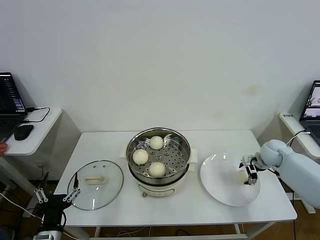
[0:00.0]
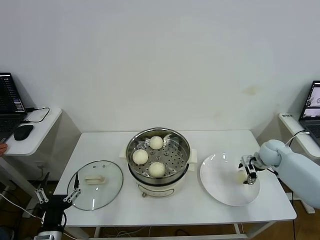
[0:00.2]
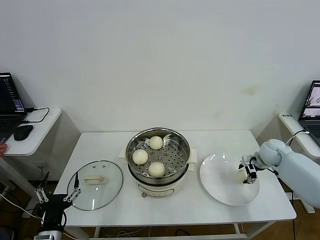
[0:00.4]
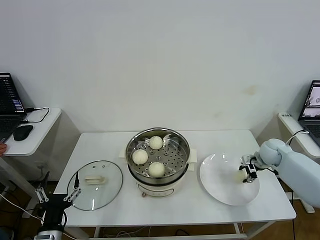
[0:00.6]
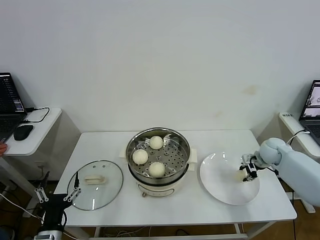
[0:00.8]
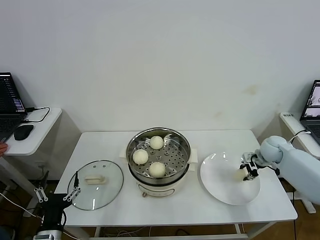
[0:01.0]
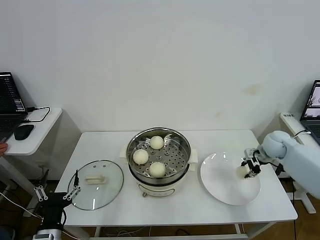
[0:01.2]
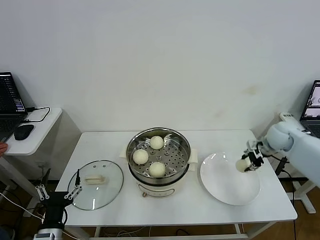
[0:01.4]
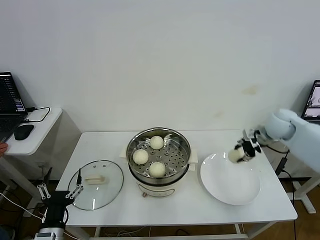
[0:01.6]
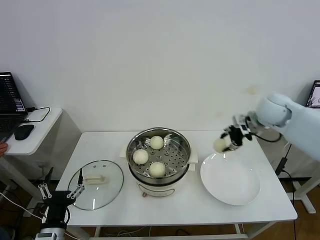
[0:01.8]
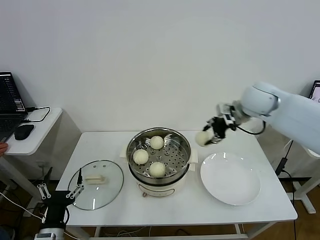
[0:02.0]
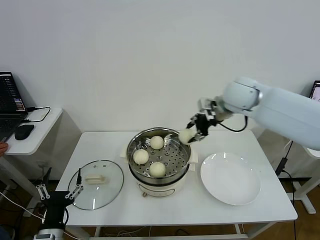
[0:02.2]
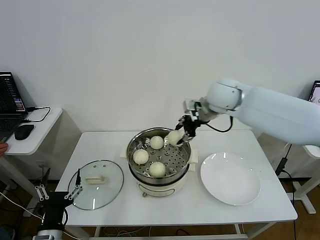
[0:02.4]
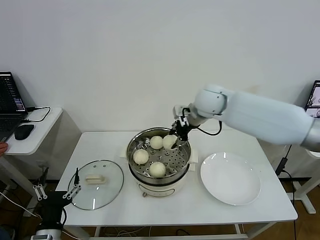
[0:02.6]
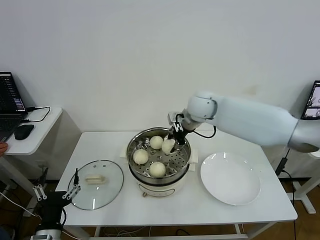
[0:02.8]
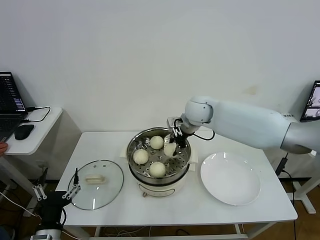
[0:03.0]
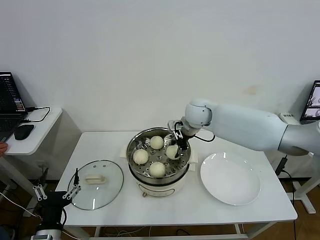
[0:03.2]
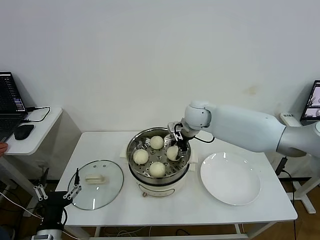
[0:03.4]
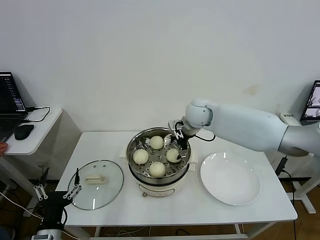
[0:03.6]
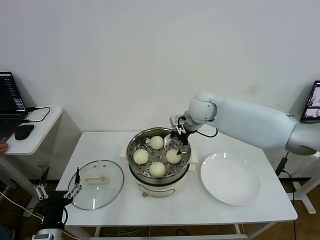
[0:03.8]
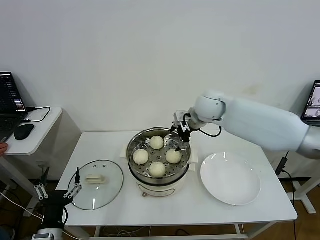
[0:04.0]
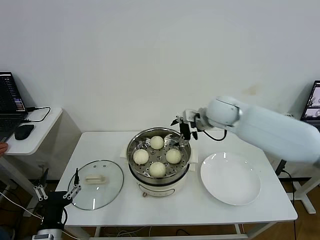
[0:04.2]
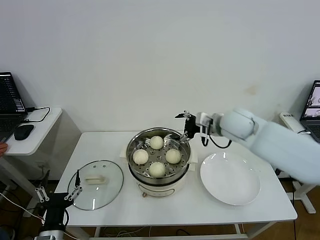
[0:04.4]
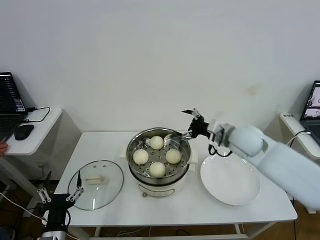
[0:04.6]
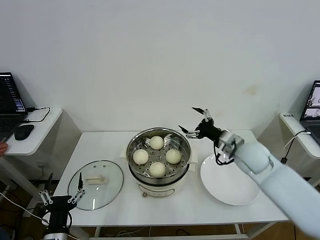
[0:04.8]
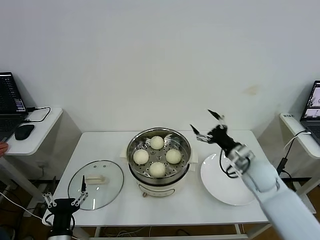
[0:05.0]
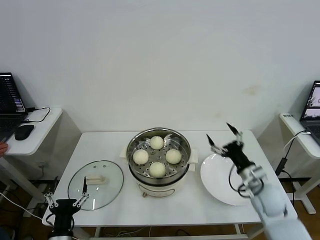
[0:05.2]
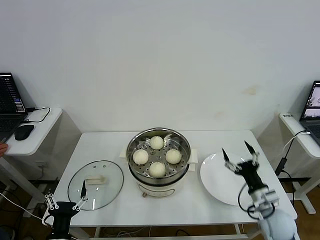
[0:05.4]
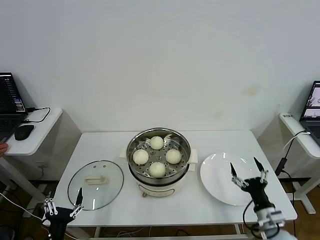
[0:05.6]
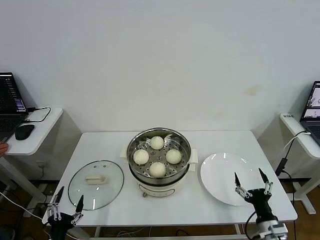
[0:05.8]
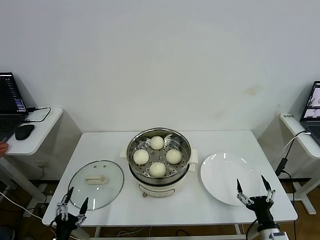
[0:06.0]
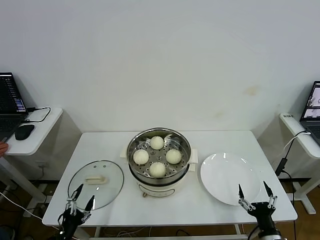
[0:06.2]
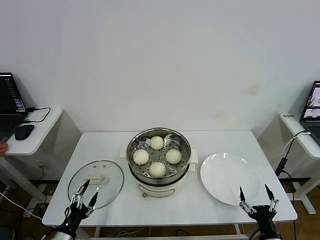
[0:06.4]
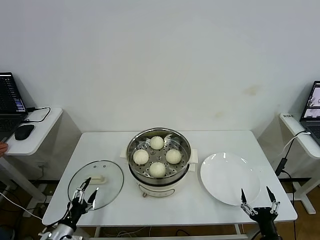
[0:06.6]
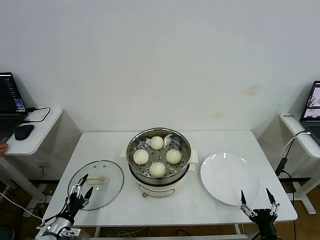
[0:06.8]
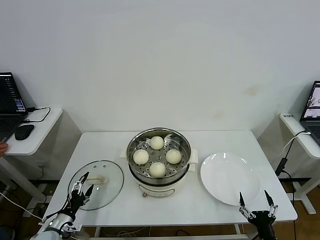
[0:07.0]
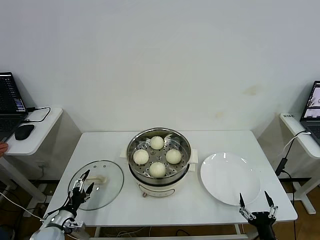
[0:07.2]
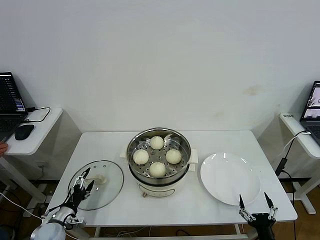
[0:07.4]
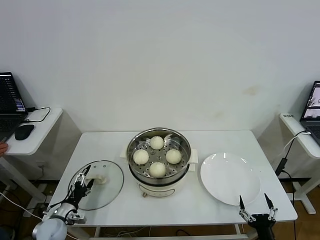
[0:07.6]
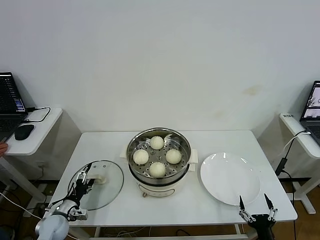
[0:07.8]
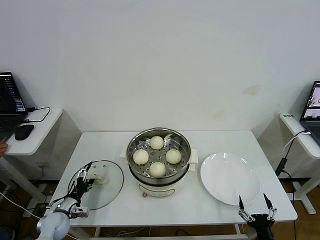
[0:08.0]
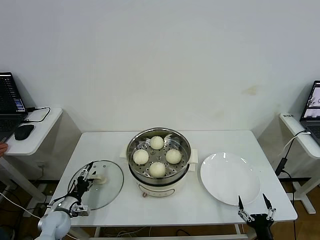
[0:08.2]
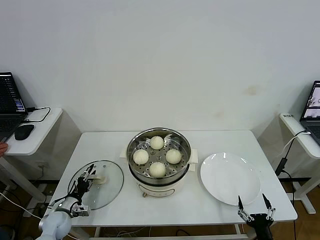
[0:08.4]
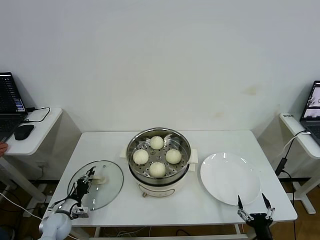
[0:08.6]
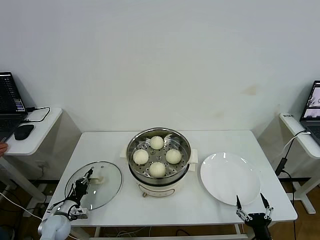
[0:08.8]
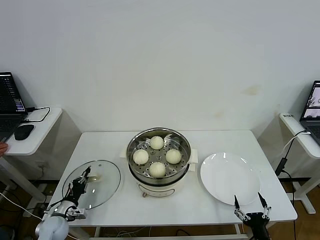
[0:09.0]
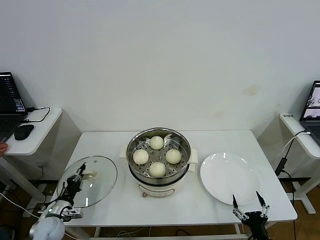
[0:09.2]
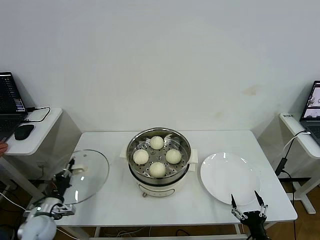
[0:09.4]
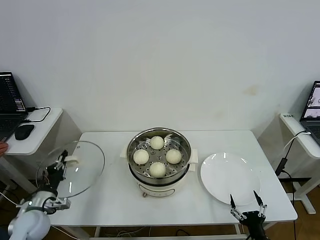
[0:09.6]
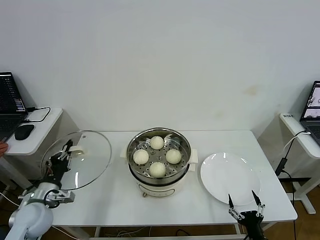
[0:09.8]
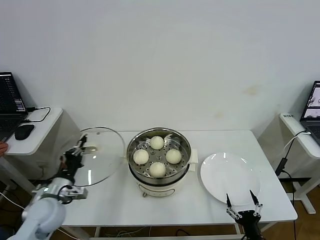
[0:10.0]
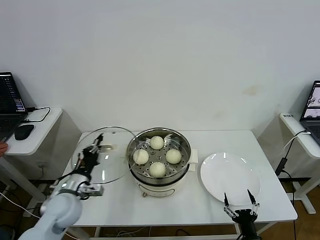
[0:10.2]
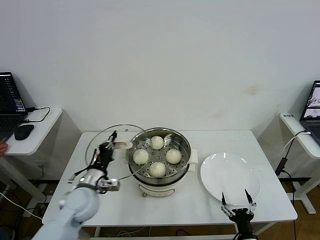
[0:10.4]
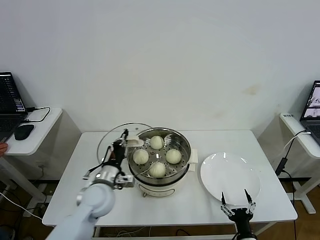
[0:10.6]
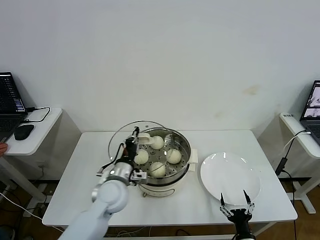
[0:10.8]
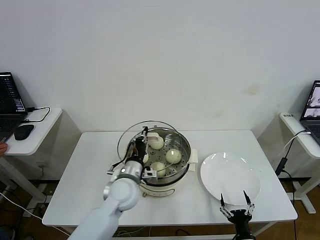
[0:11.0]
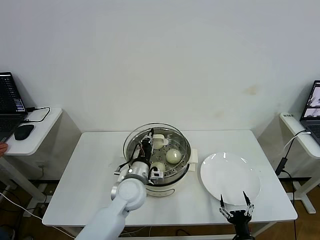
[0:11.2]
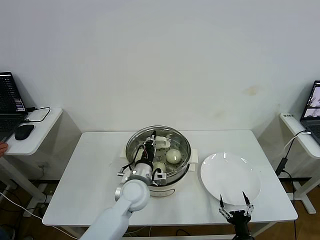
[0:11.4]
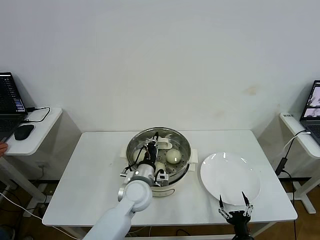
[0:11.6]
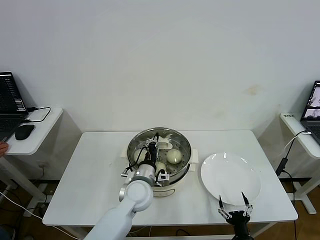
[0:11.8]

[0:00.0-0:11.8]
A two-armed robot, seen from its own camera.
Step, 0:01.0 to 0:04.2: Place the baozi on the steamer with right gripper.
Step, 0:04.6 to 0:09.0: Grasp the pot lid with left gripper.
0:00.0 to 0:01.4: The right gripper is displaced upward by roughly 10 cm, and closes its fingers.
0:01.4 to 0:03.0: The right gripper heads to the left, covering approximately 30 cm.
0:03.0 to 0:04.4: The right gripper shifts roughly 10 cm to the right and backward, and opens up.
0:04.4 to 0:06.0: The right gripper travels backward and downward by roughly 40 cm. Meanwhile the left gripper shifts roughly 10 cm downward.
0:06.0 to 0:07.4: The left gripper heads forward, covering some 15 cm. Meanwhile the right gripper ends up roughly 5 cm from where it was.
0:07.4 to 0:08.8: The left gripper closes up.
0:08.8 to 0:10.4: The left gripper shifts roughly 25 cm upward and to the right. The right gripper shifts by some 5 cm.
0:10.4 to 0:11.8: The left gripper shifts approximately 15 cm to the right.

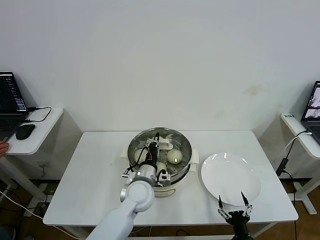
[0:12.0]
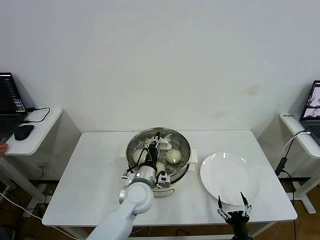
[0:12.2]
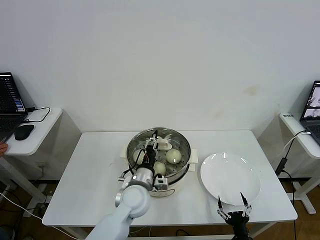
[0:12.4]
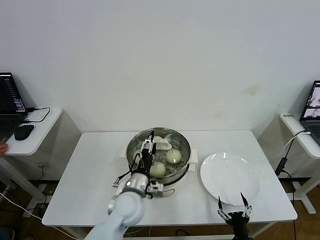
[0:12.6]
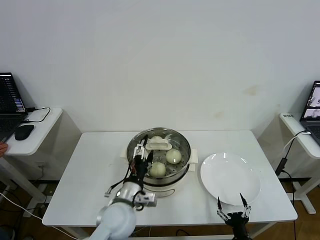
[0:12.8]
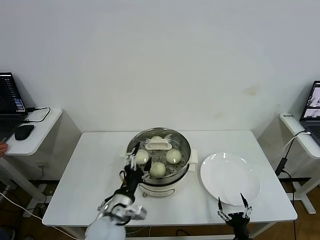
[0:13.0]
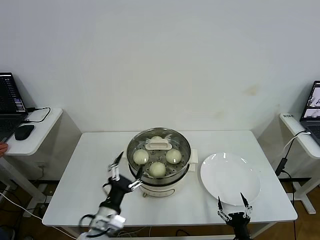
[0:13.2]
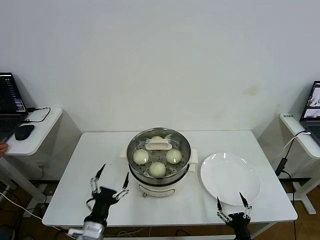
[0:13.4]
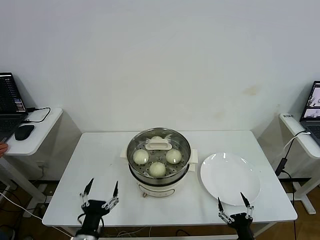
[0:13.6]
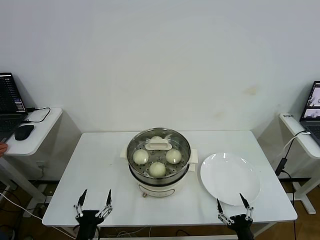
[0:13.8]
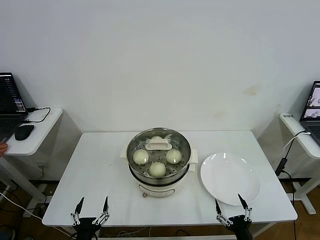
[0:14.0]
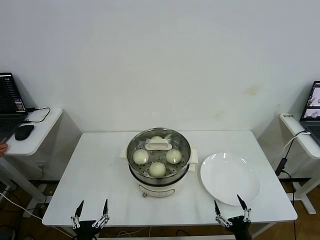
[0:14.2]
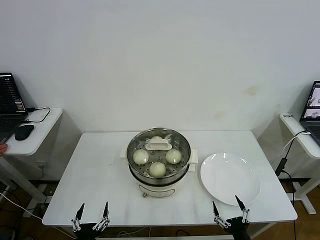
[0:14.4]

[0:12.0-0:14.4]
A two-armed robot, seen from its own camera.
0:12.0 to 0:13.2: The left gripper shifts about 15 cm backward and to the left, and opens.
0:13.2 to 0:14.4: The right gripper changes place by roughly 5 cm. Meanwhile the left gripper travels backward, downward and to the left by some 20 cm.

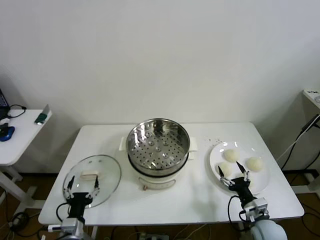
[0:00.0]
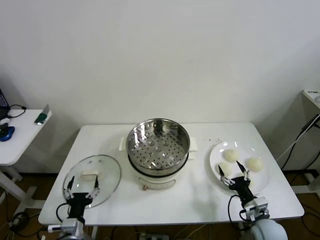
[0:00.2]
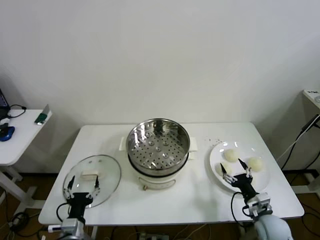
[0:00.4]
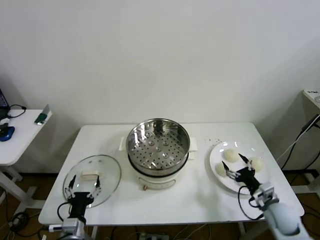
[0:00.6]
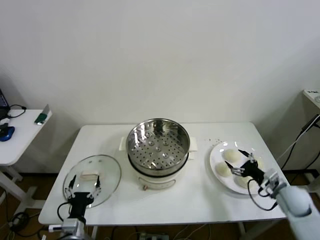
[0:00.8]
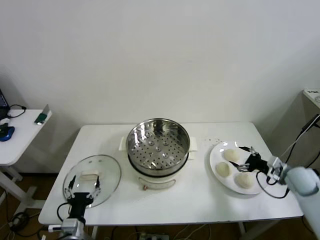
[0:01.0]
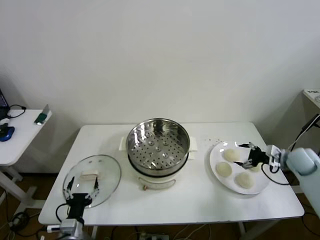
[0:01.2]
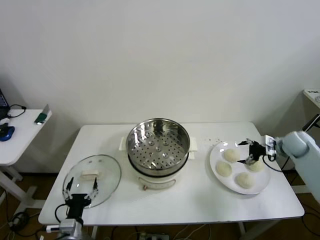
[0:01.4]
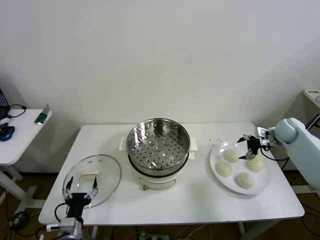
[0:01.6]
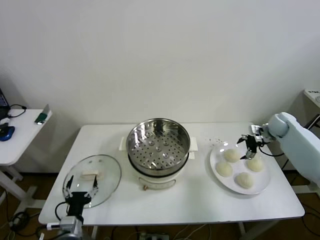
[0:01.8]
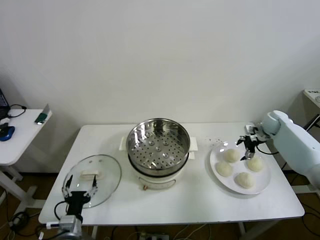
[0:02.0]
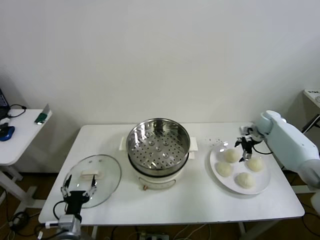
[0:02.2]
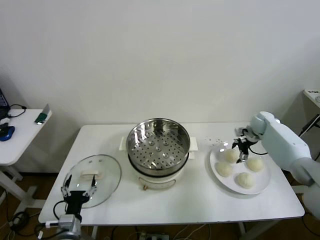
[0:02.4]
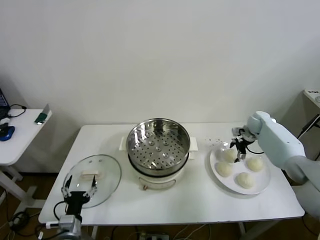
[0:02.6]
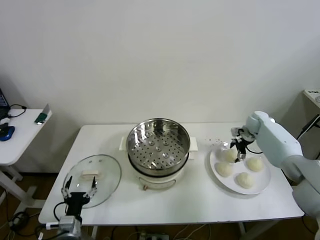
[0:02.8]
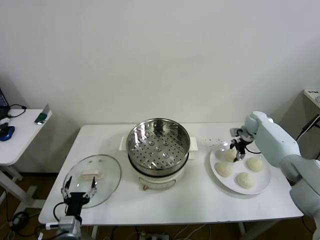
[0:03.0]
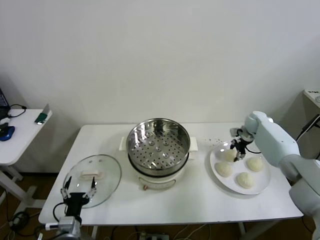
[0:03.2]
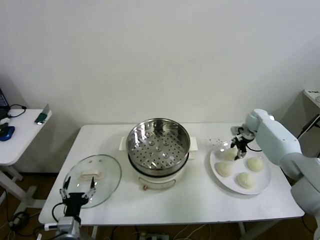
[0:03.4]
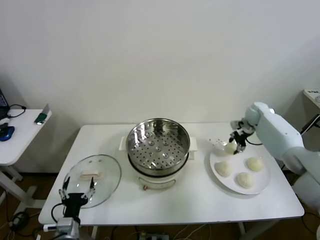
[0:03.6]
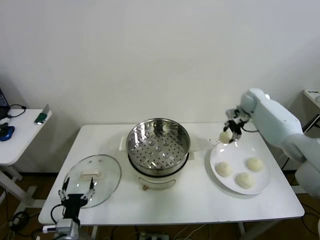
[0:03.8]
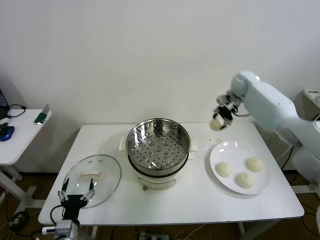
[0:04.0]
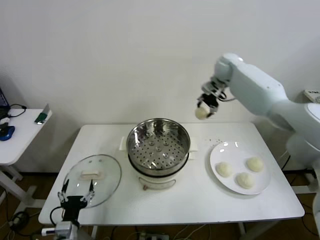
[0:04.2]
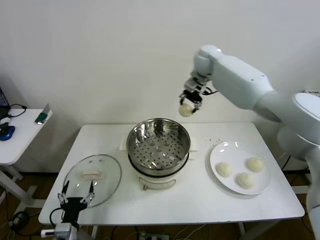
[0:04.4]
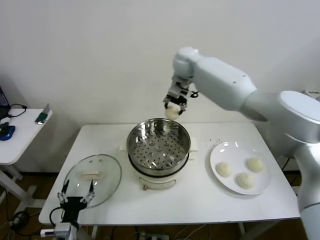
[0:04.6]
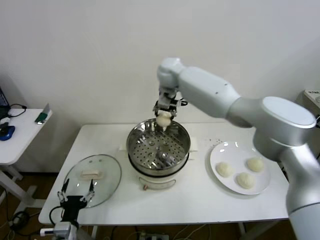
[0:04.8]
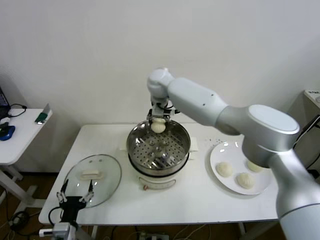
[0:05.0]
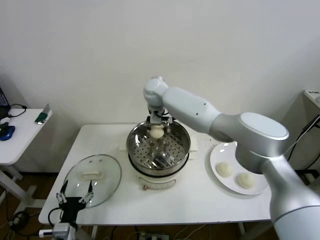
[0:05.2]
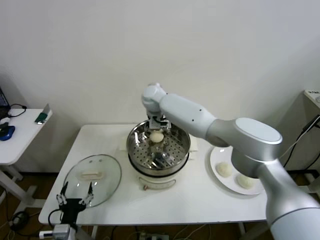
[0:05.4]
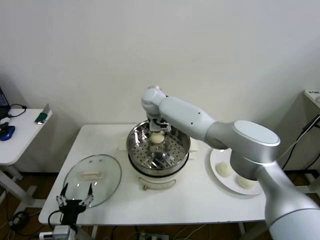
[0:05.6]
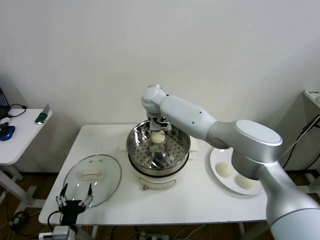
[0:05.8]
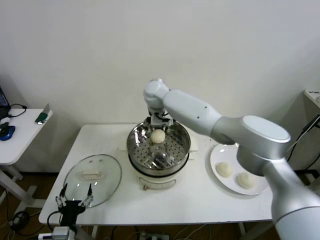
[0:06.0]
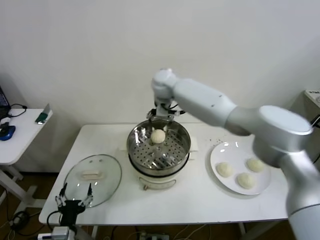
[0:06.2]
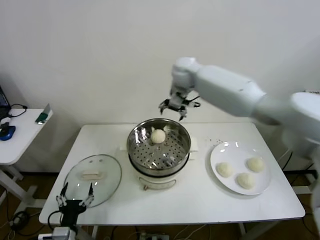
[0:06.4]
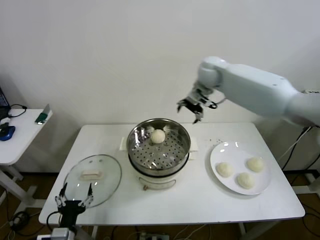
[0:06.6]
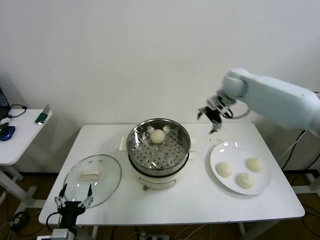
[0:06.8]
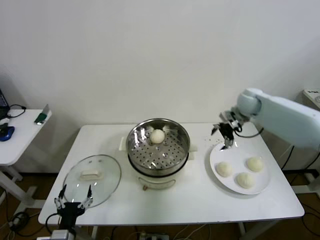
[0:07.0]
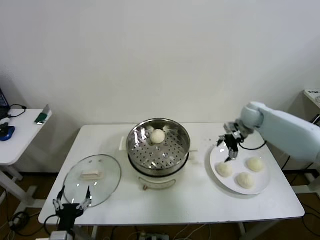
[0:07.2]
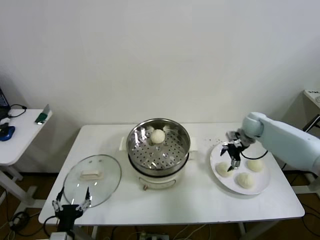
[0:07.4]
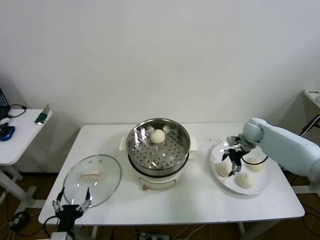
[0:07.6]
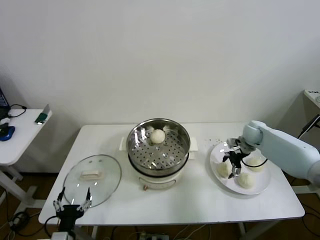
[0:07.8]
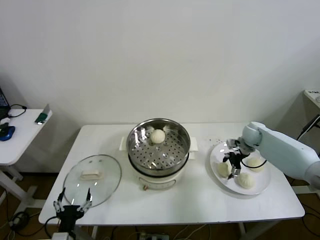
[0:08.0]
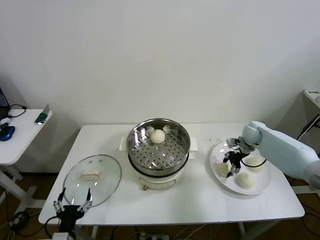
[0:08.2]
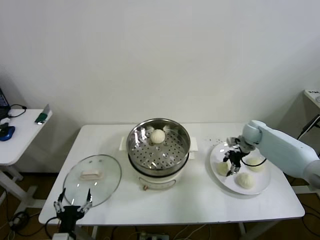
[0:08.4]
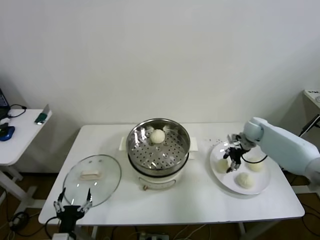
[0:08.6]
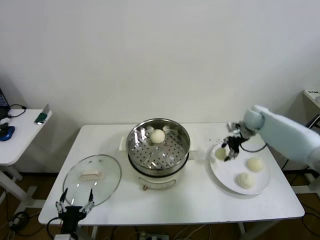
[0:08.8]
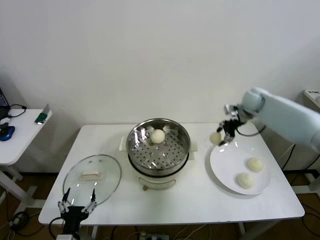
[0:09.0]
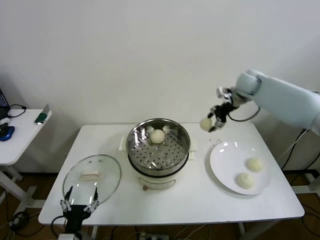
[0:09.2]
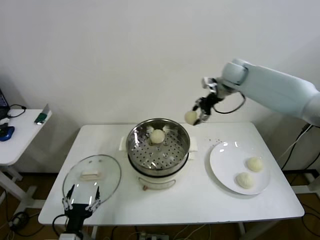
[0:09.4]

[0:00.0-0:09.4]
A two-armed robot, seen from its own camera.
Step, 0:00.0 to 0:03.2: Grasp the baozi in the plate with right gripper.
Step, 0:03.4 to 0:06.0: Place the baozi on the steamer with right gripper.
Step, 0:06.2 to 0:08.4: Grasp the baozi in the plate with right gripper.
0:01.6 to 0:03.2: The right gripper moves forward and to the left, about 10 cm, and closes its fingers.
0:03.2 to 0:04.8: The right gripper heads to the left and upward, covering some 50 cm.
0:04.8 to 0:06.2: The right gripper moves approximately 10 cm downward and comes back, and opens its fingers.
0:06.2 to 0:07.8: The right gripper heads to the right and downward, covering about 40 cm.
0:07.8 to 0:09.4: The right gripper moves upward and to the left, about 30 cm, and closes.
